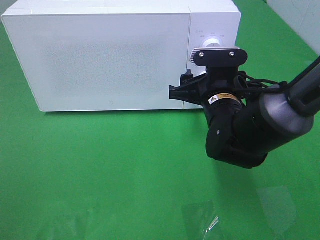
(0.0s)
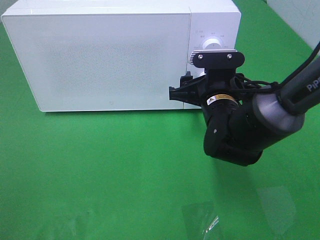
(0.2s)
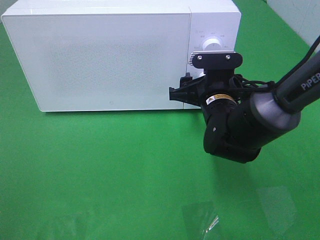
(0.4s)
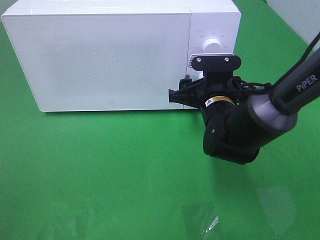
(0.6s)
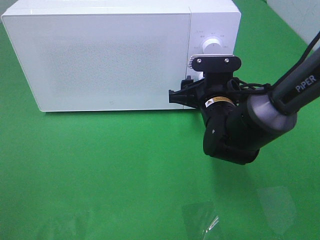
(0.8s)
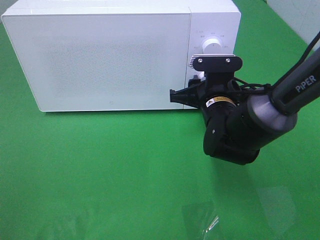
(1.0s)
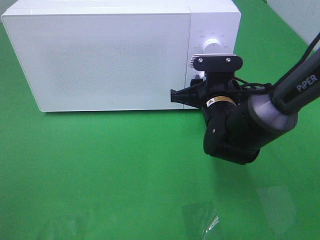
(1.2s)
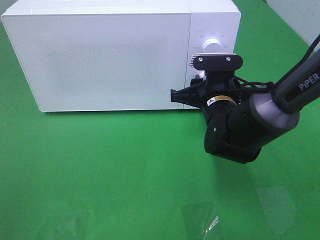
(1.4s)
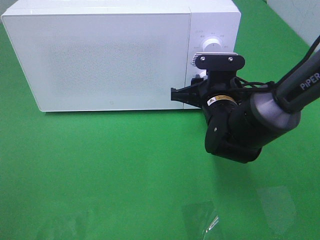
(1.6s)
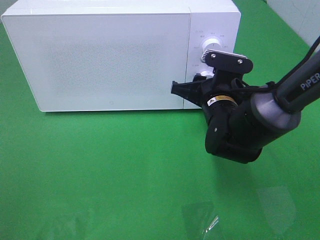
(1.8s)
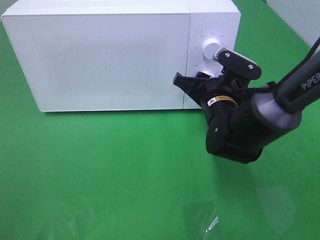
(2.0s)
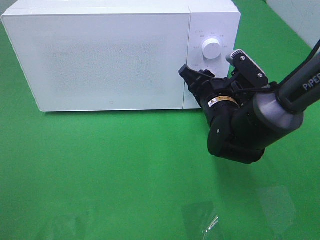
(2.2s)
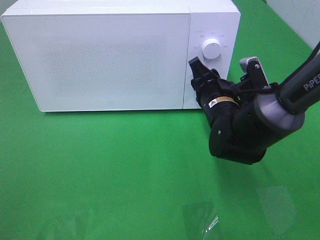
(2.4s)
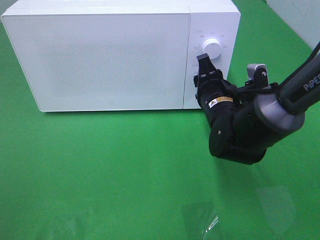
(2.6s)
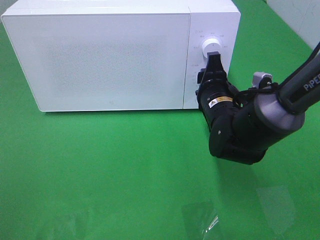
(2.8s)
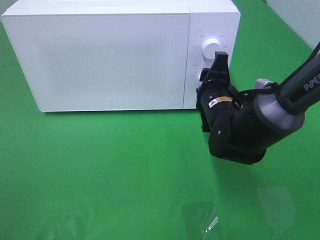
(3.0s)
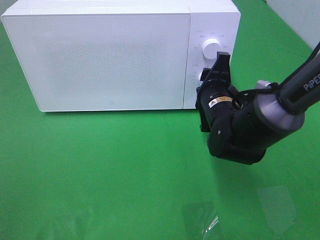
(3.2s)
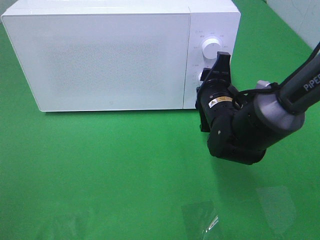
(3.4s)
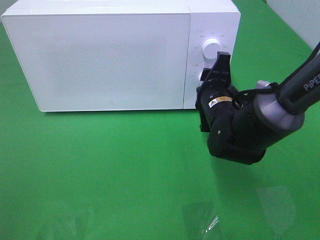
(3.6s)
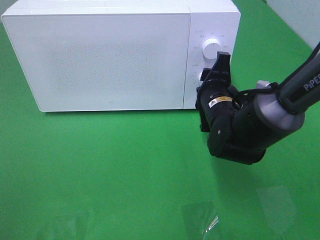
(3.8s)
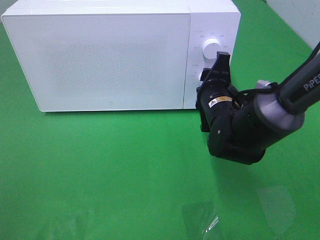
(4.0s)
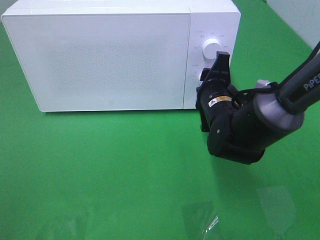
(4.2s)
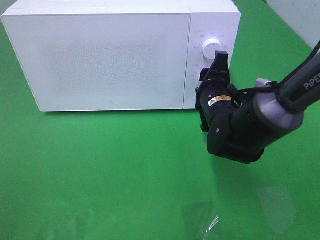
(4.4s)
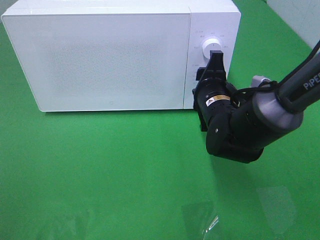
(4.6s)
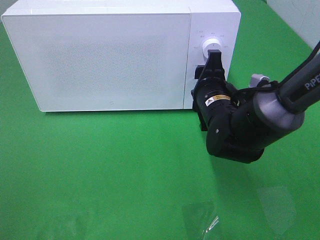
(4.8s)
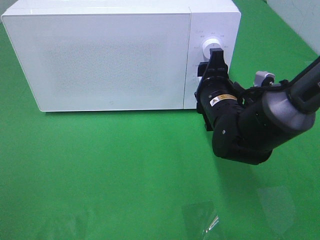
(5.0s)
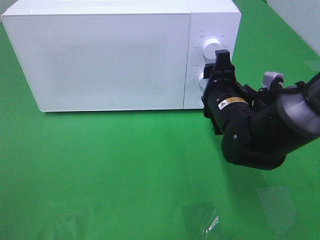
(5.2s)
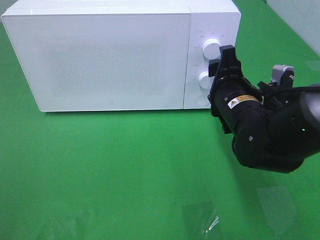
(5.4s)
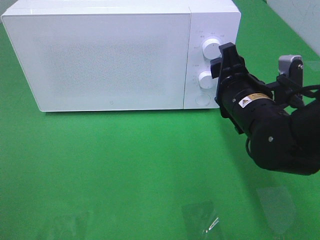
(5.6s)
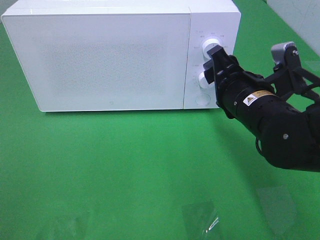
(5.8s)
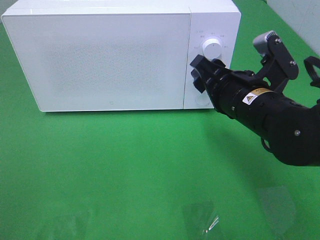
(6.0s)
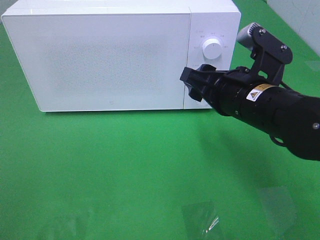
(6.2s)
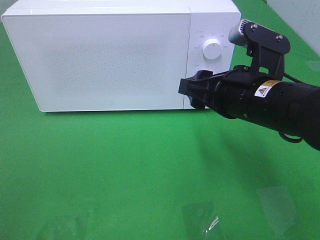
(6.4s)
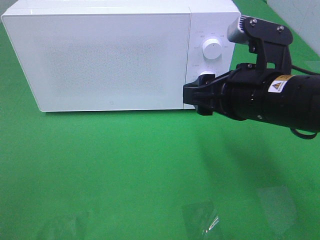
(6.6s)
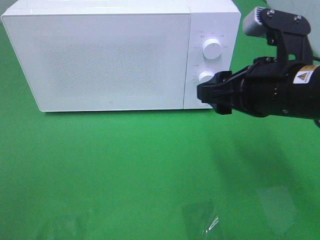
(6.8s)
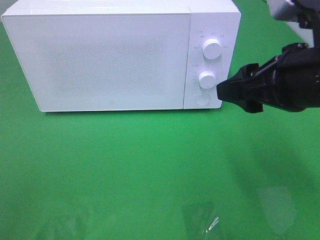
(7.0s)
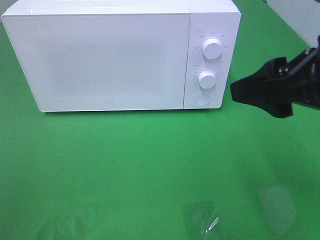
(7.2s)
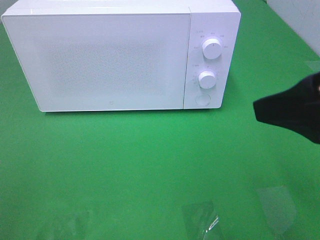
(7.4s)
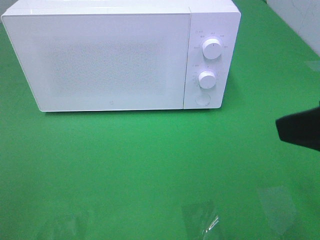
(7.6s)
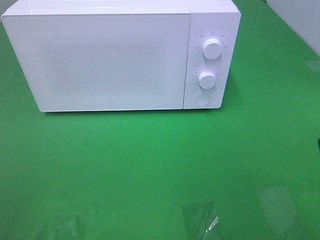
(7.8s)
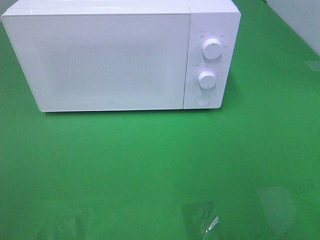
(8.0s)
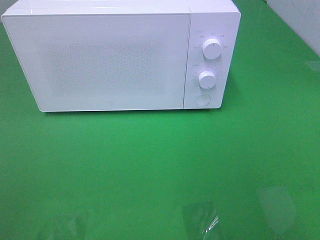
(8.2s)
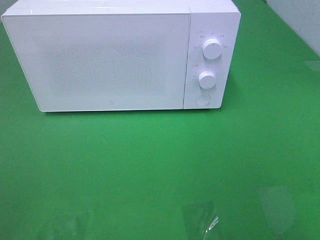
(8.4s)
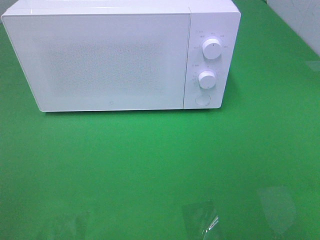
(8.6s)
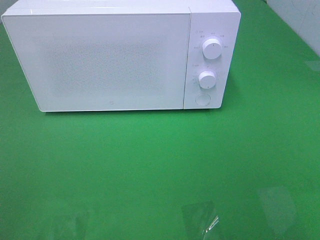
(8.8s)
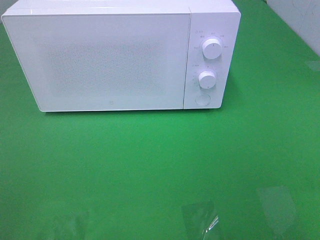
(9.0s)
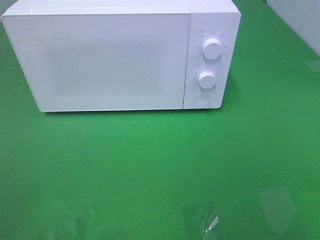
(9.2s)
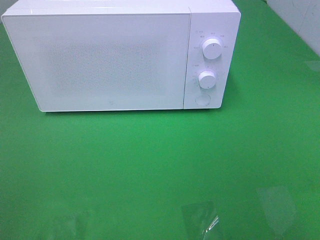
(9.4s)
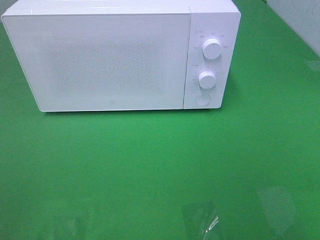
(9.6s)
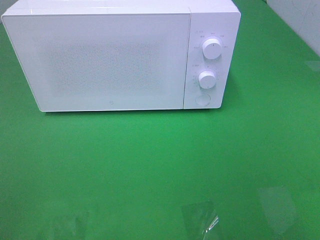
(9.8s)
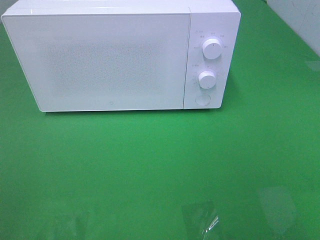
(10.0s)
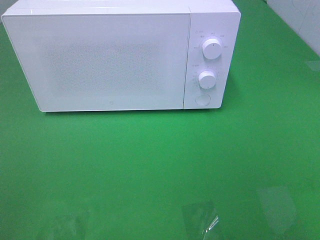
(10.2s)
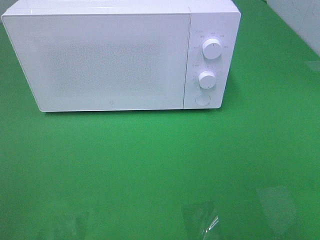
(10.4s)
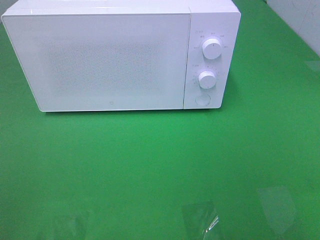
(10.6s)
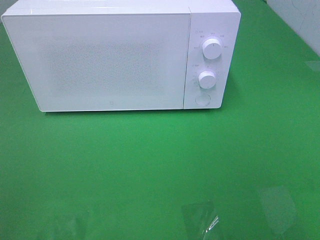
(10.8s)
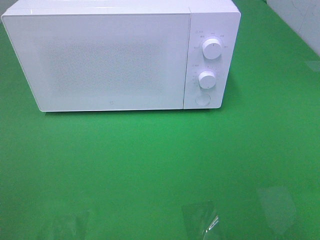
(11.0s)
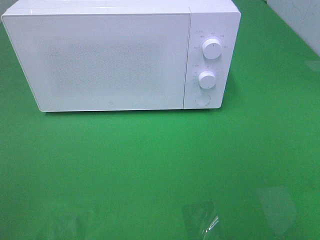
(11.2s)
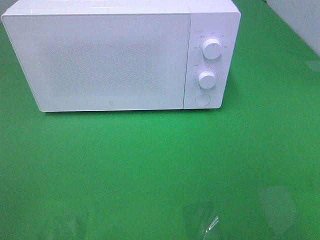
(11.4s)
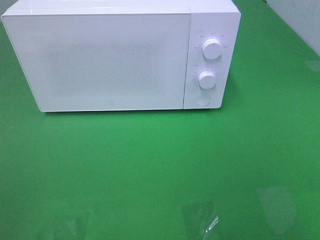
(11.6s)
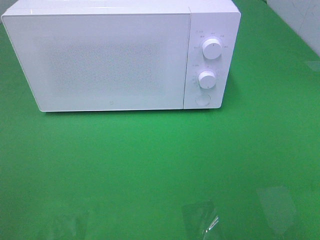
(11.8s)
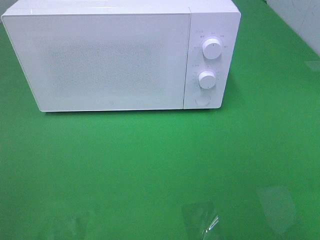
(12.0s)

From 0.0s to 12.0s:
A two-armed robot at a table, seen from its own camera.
Task of the whole recording: Heat the burger.
Step, from 0.0s to 4.6s: Right hand: twist timer button.
From 0.0s to 1.6s: The grippers stay close to where they were, moving slightly.
From 3.0s to 4.4s: The two grippers keep their place.
From 4.4s to 6.0s: The right gripper travels backward and upward by some 10 cm.
From 6.0s to 7.6s: The right gripper shifts some 20 cm backward, upward and to the right.
From 7.6s to 9.0s: The right gripper goes about 15 cm backward and to the right.
From 9.0s to 12.0s: Both grippers stay put.

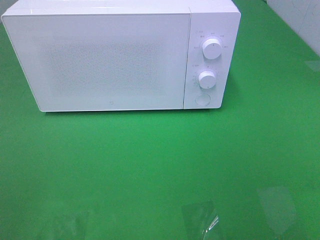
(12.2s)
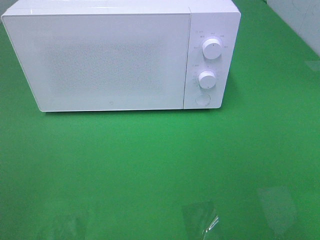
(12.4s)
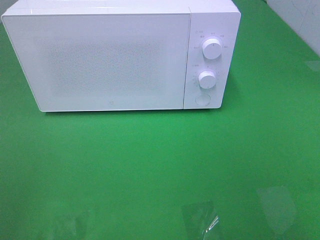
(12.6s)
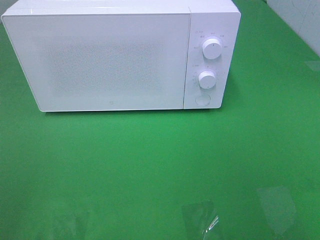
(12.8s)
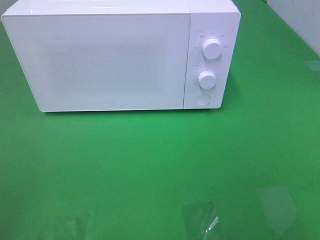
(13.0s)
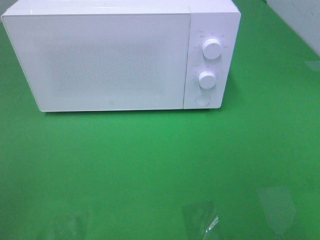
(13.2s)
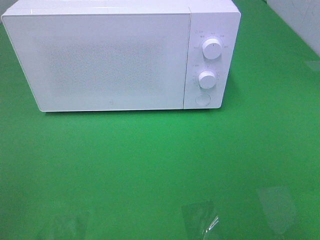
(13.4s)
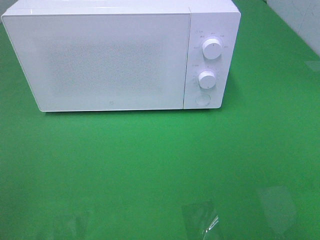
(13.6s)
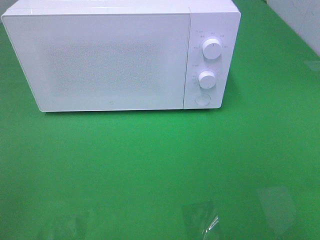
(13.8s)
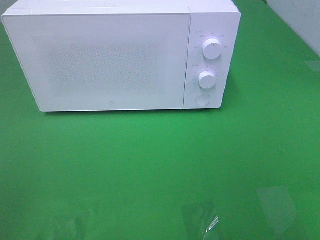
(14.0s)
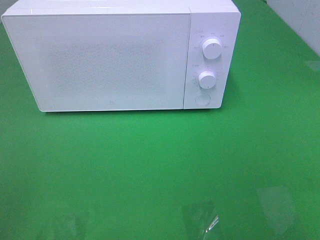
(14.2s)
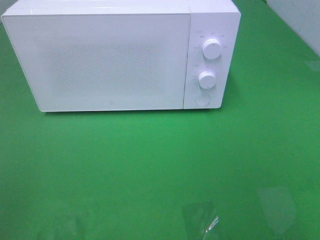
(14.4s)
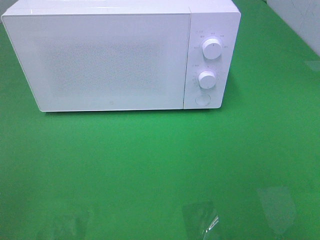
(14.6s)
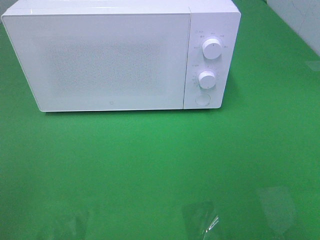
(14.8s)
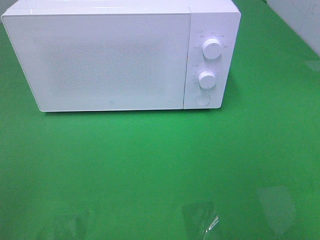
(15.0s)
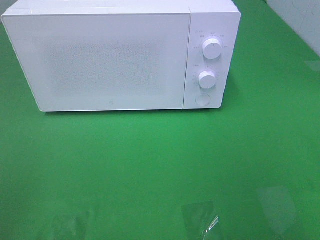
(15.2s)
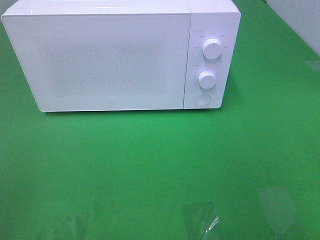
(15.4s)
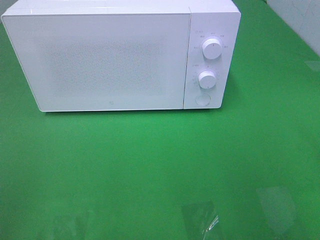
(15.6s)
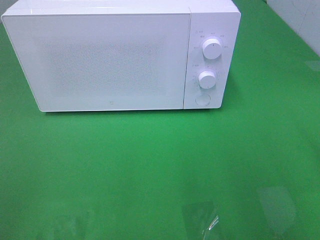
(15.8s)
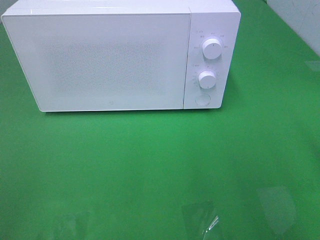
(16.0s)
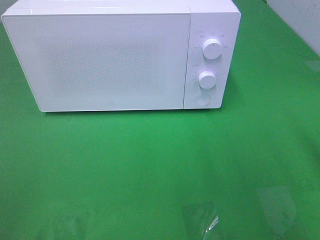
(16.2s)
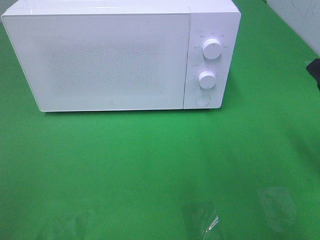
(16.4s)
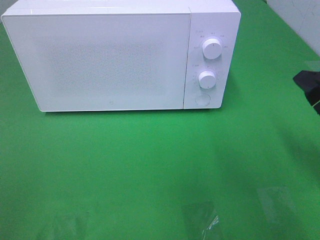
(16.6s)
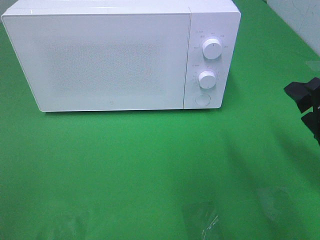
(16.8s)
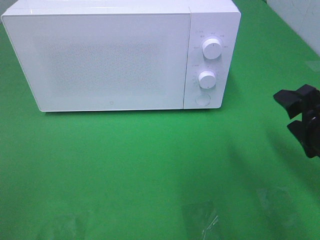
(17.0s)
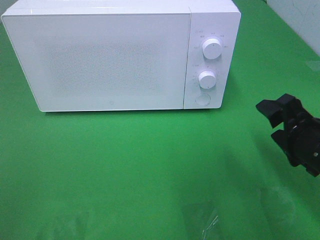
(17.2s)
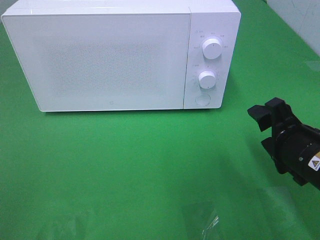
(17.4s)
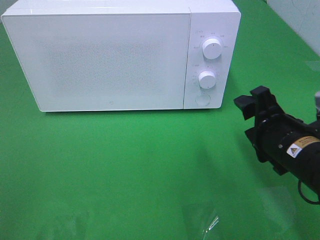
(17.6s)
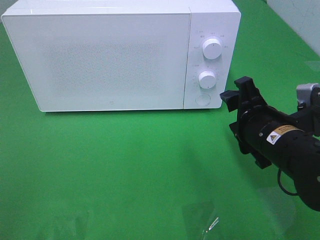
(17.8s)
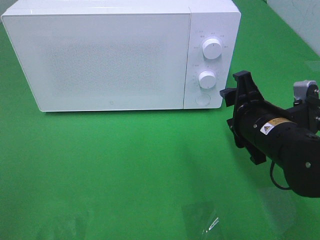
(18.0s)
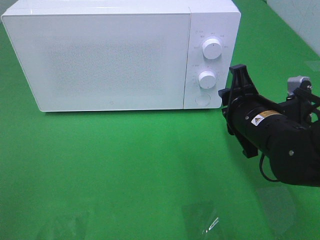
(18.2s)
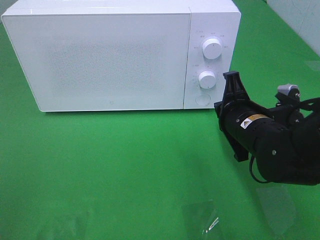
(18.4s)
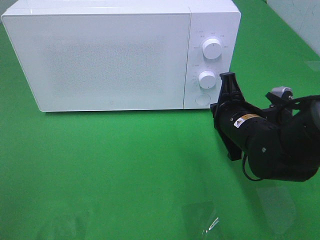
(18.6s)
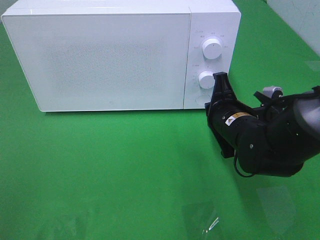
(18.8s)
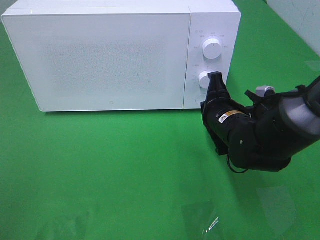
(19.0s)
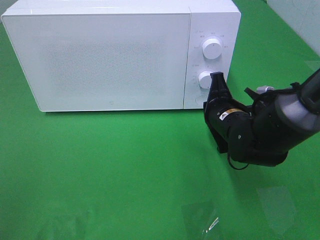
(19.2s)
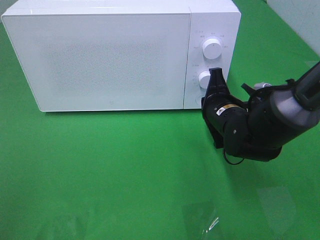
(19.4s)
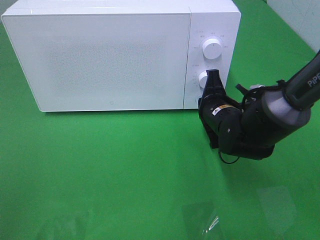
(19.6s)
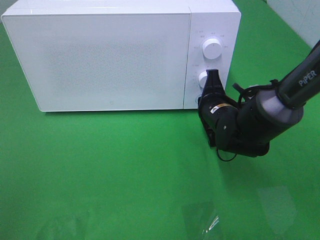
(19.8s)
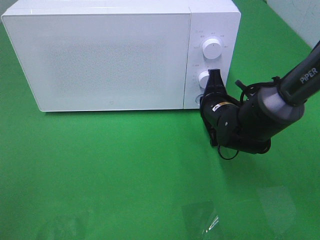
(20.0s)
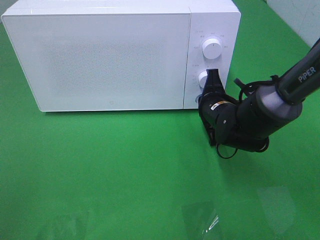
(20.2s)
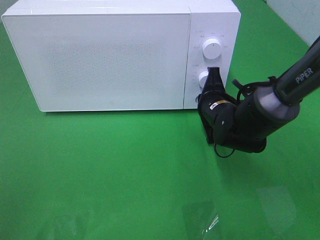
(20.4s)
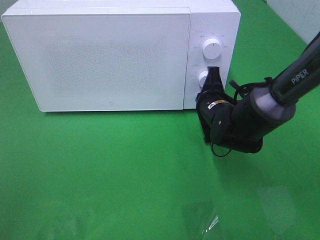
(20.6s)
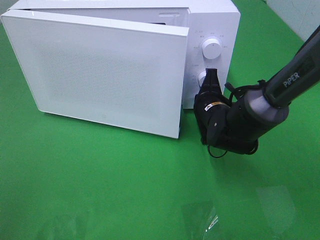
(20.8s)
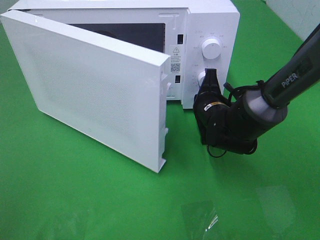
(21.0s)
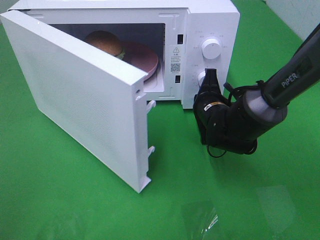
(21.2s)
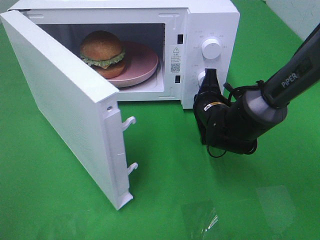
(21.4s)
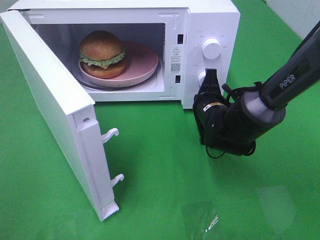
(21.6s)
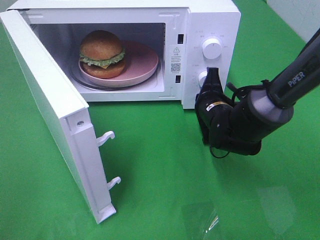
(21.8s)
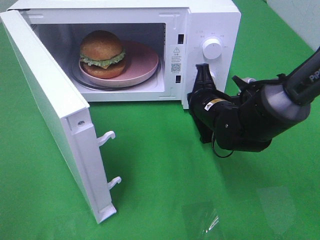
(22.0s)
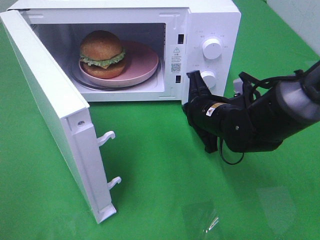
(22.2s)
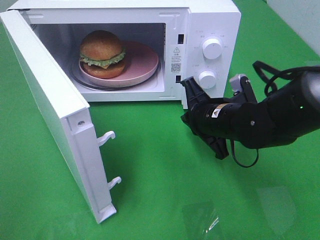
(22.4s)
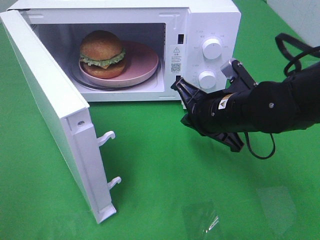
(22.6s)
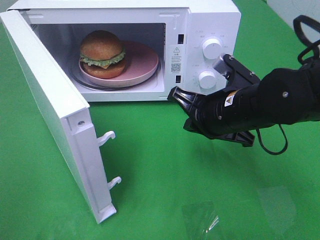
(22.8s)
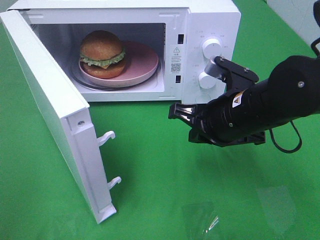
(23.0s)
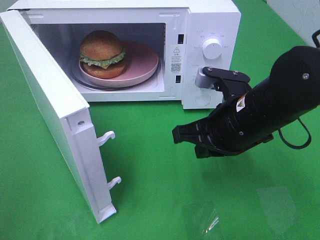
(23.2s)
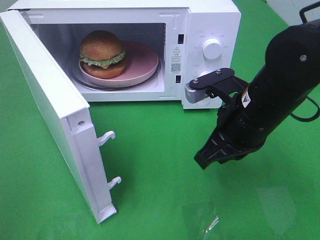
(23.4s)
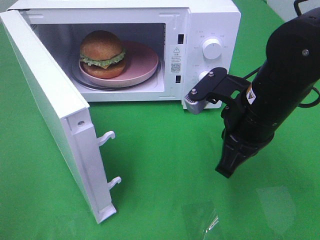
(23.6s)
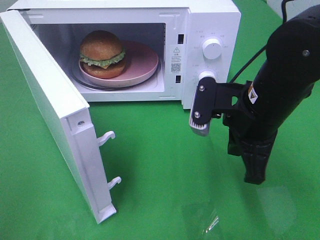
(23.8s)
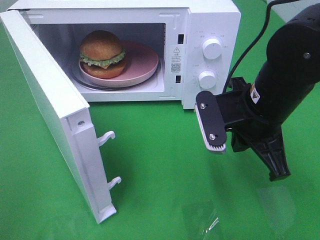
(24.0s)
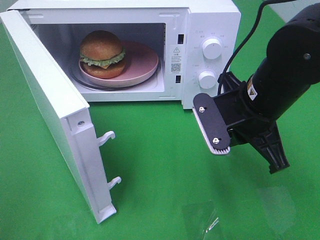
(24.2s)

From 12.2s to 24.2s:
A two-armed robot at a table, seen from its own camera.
Task of the whole recording: Heat the burger.
From 15.2s to 16.6s: The right gripper shifts approximately 15 cm forward and downward.
From 16.6s to 18.2s: The right gripper heads to the left and forward, covering about 15 cm, and closes.
From 18.2s to 19.8s: The right gripper goes some 10 cm forward and downward, and closes up.
From 21.2s to 22.6s: The right gripper is displaced backward and upward by some 10 cm.
From 22.6s to 24.2s: The right gripper ends up approximately 5 cm from where it was.
